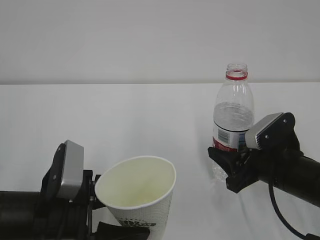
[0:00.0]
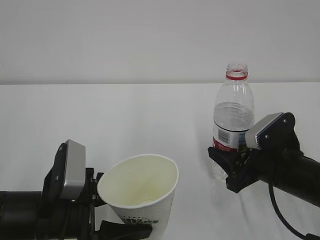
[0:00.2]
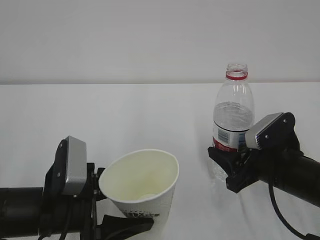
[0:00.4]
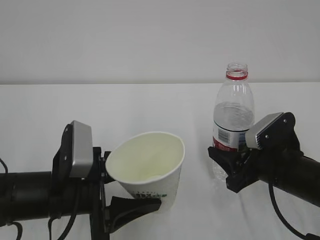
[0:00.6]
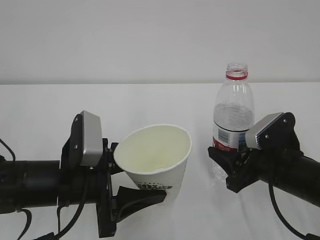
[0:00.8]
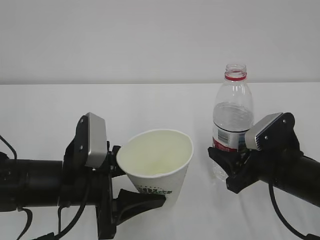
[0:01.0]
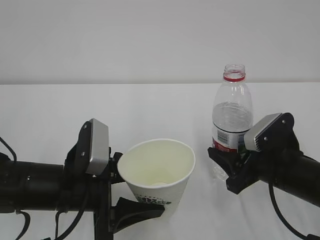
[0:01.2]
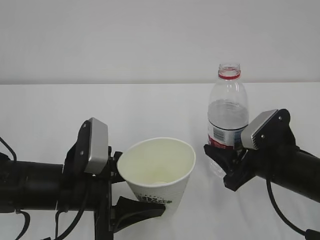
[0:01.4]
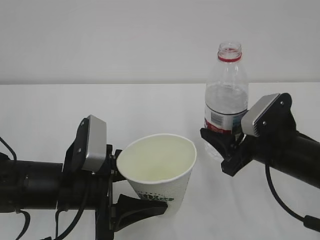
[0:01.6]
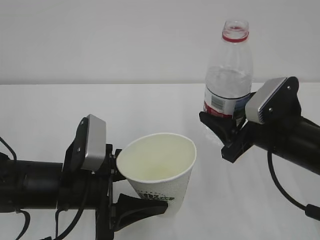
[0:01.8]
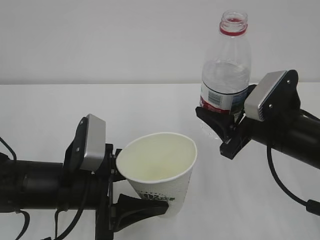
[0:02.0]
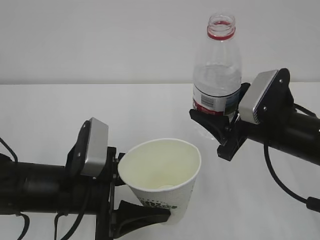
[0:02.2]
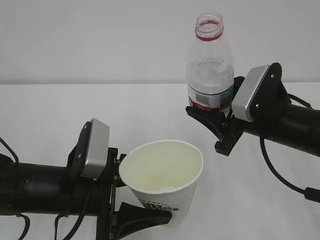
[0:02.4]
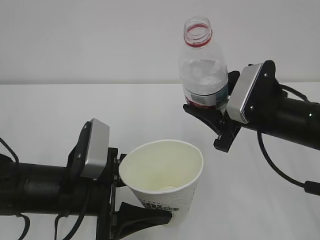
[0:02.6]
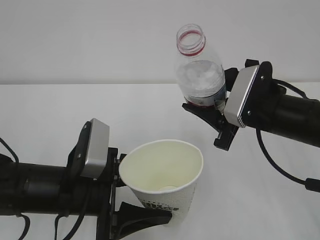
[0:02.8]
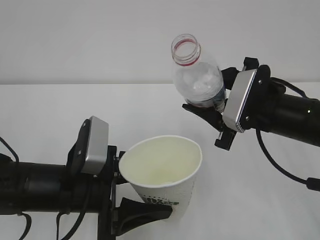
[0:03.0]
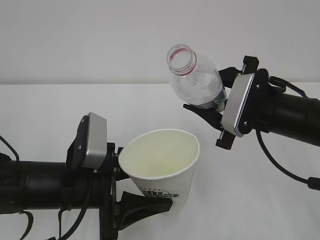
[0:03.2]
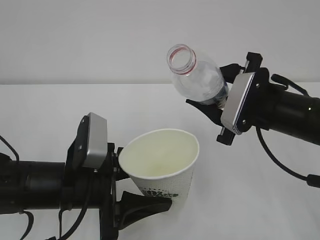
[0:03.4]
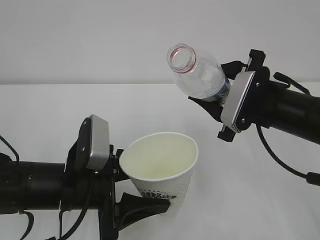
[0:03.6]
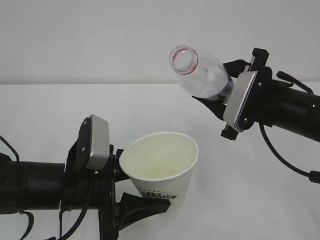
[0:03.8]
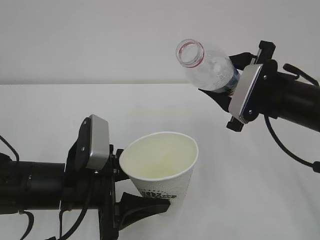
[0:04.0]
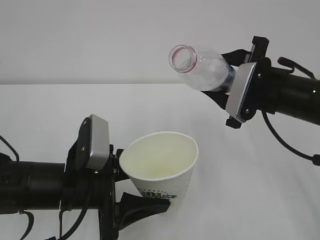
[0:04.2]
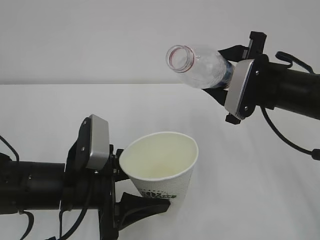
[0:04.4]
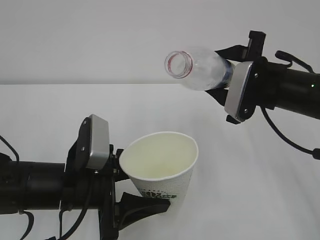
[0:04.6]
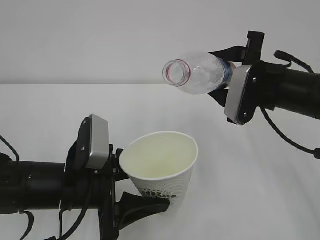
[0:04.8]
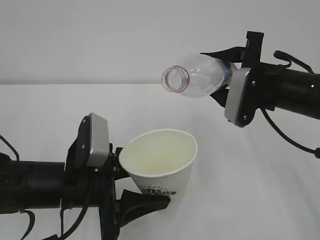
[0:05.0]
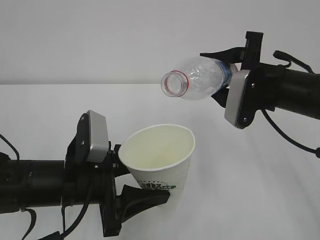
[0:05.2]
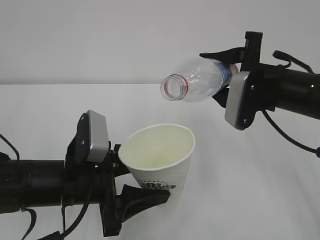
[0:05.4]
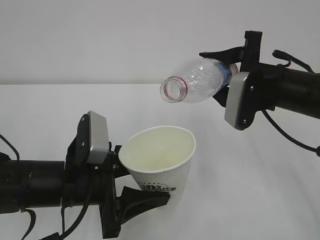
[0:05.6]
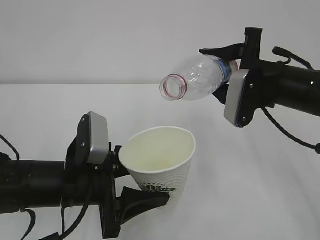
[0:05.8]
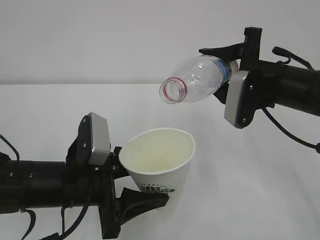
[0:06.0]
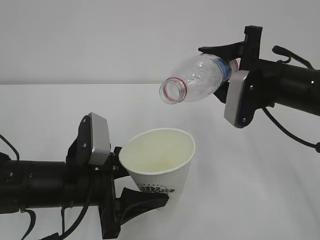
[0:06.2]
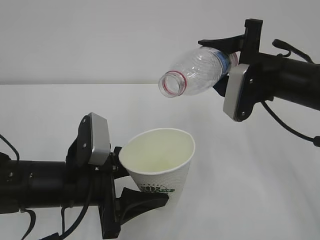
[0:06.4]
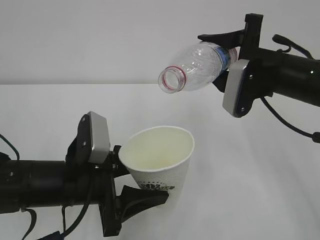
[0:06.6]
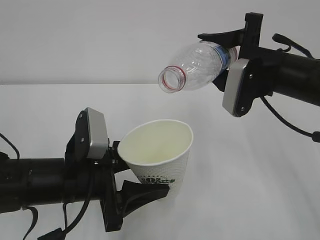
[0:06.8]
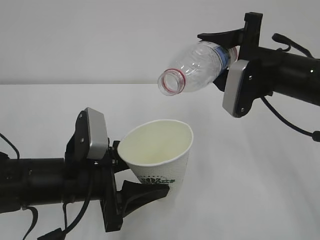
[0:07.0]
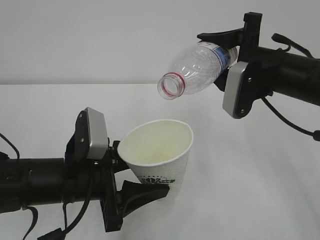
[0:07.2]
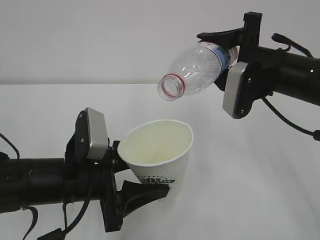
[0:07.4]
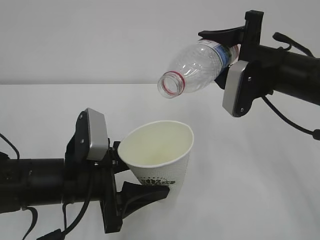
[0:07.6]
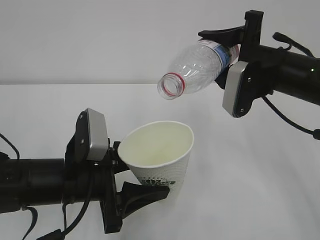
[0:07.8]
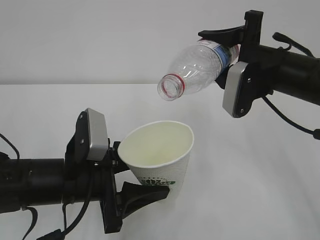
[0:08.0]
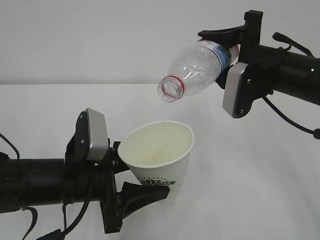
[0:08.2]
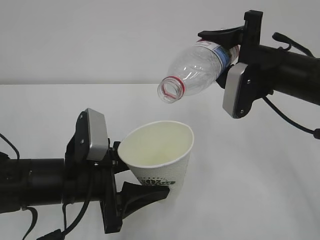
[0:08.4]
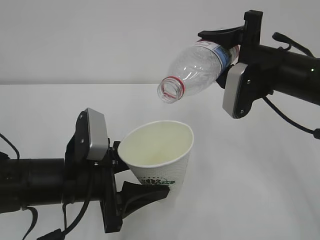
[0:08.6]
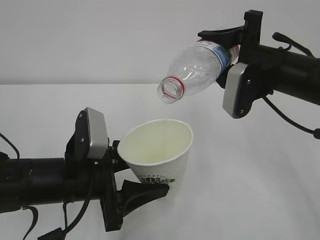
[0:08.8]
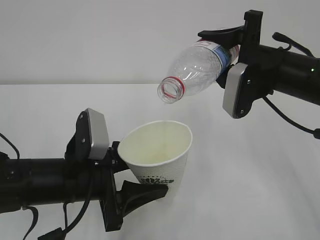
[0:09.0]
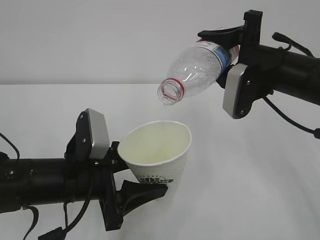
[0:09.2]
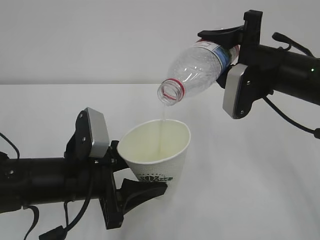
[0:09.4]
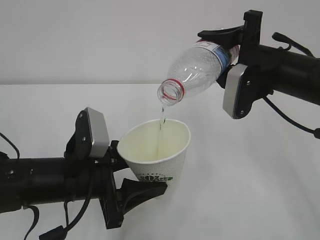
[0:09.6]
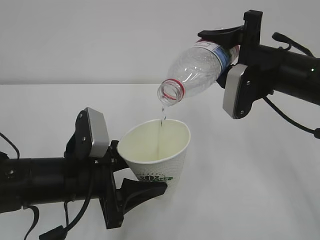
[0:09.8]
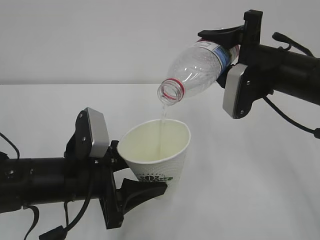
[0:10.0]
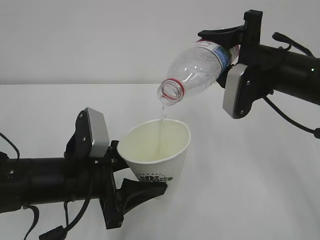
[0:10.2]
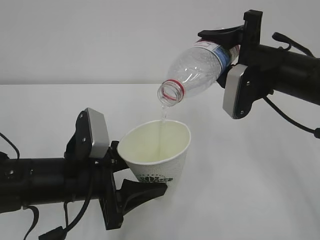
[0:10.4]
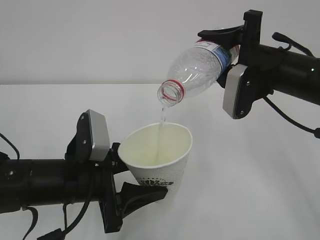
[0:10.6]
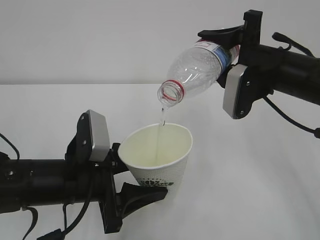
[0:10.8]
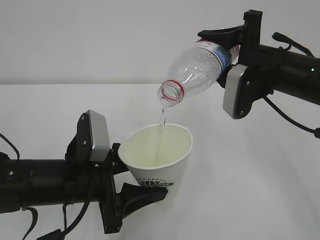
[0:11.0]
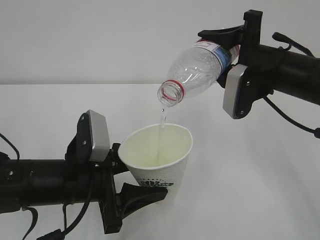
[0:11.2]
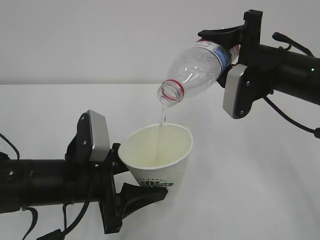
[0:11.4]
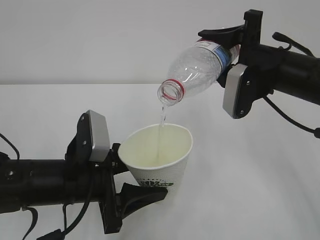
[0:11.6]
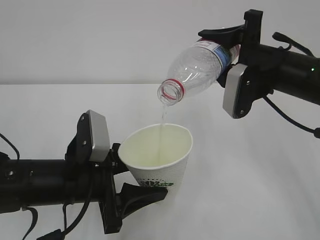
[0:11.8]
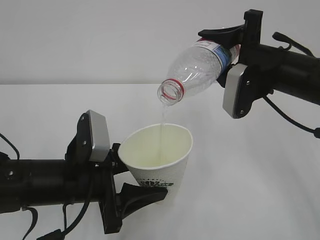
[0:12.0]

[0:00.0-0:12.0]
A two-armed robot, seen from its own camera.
0:01.6 to 0:03.0: The right gripper goes about 5 cm upward.
0:03.0 to 0:04.4: There are only small adjustments of the grippers.
0:04.4 to 0:06.0: The grippers move only a little.
0:06.0 to 0:07.6: There are only small adjustments of the grippers.
0:07.6 to 0:12.0: Neither gripper changes place.

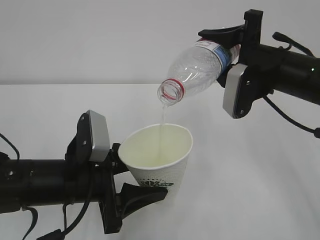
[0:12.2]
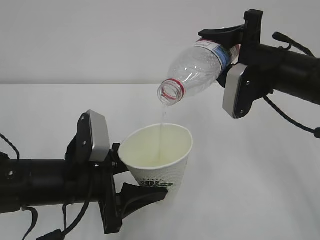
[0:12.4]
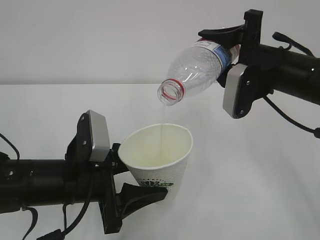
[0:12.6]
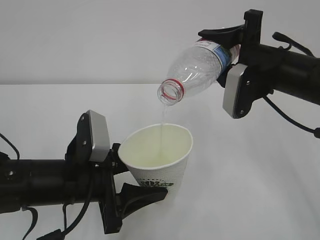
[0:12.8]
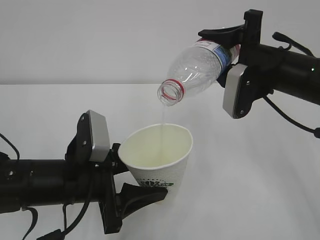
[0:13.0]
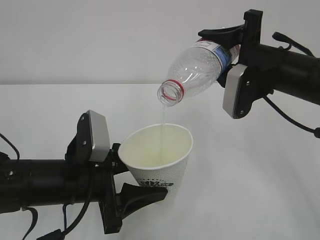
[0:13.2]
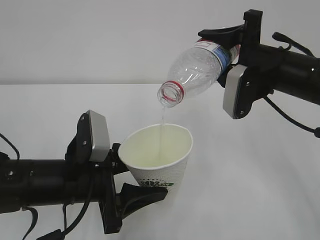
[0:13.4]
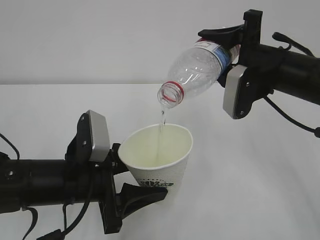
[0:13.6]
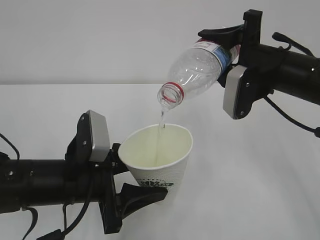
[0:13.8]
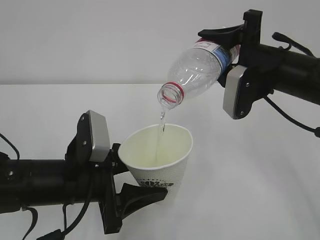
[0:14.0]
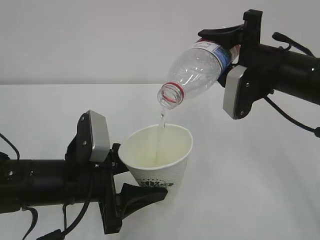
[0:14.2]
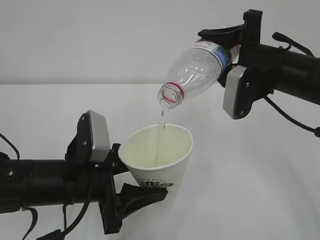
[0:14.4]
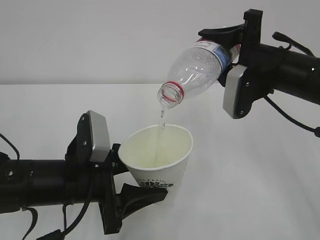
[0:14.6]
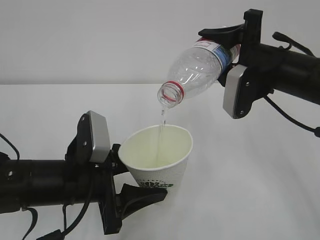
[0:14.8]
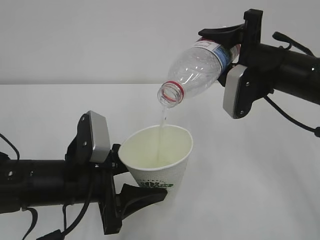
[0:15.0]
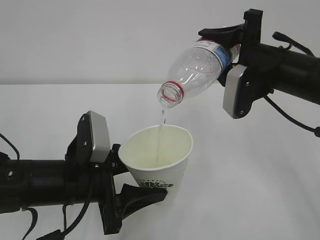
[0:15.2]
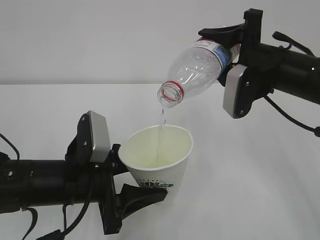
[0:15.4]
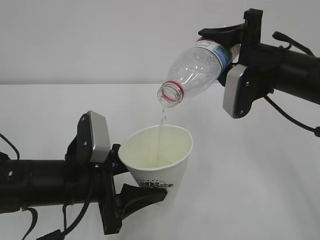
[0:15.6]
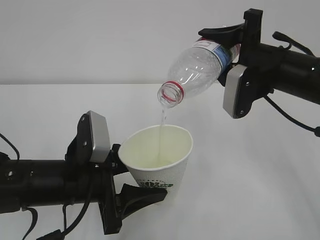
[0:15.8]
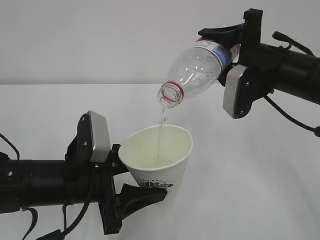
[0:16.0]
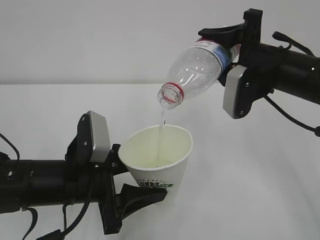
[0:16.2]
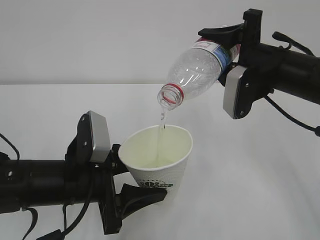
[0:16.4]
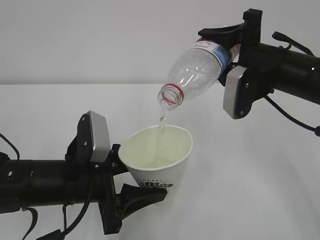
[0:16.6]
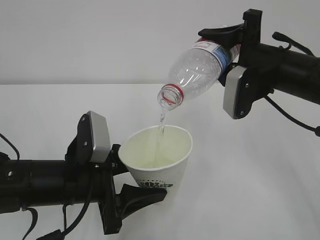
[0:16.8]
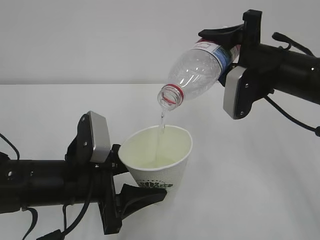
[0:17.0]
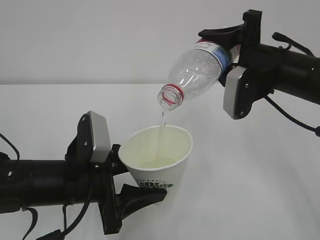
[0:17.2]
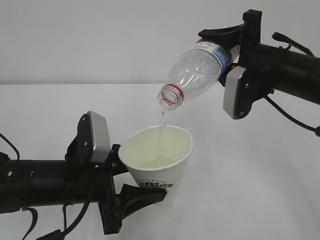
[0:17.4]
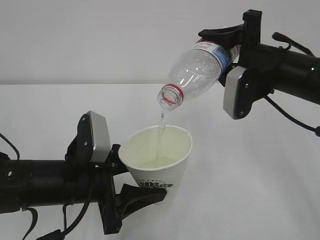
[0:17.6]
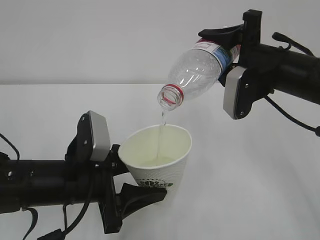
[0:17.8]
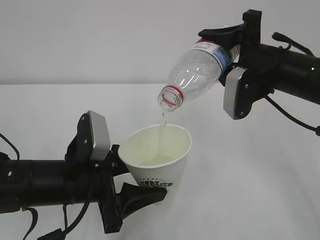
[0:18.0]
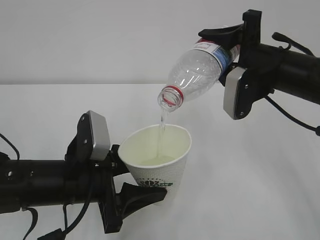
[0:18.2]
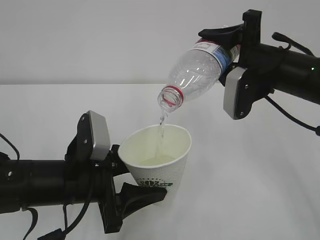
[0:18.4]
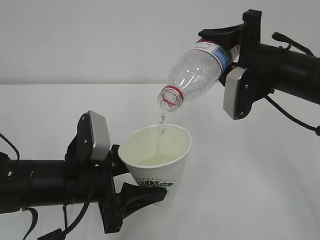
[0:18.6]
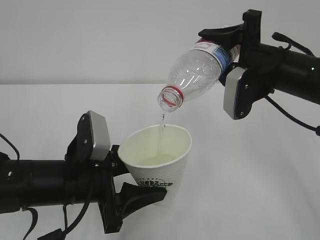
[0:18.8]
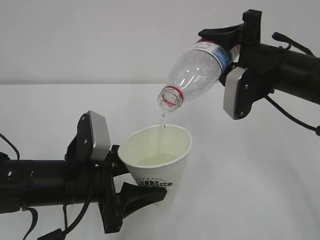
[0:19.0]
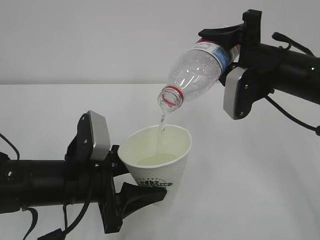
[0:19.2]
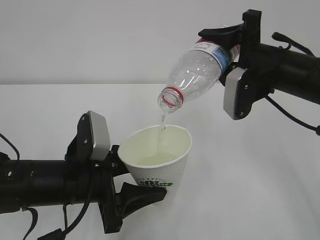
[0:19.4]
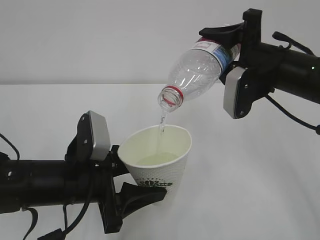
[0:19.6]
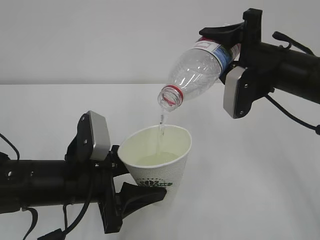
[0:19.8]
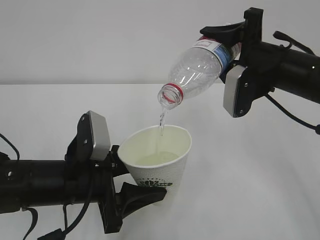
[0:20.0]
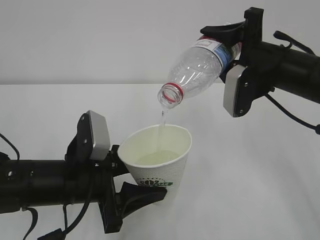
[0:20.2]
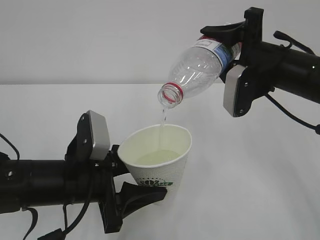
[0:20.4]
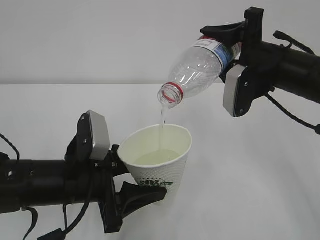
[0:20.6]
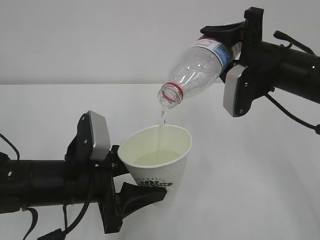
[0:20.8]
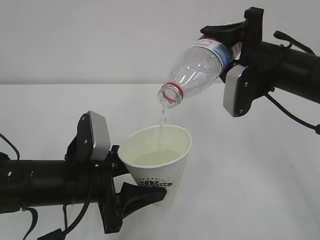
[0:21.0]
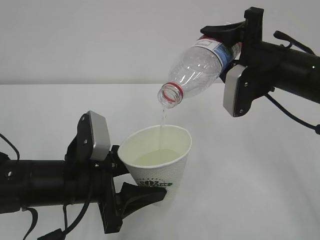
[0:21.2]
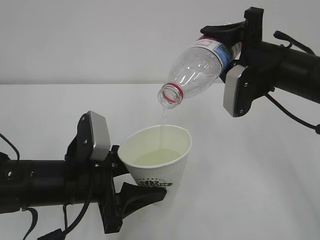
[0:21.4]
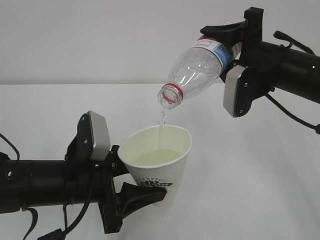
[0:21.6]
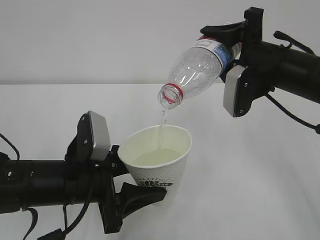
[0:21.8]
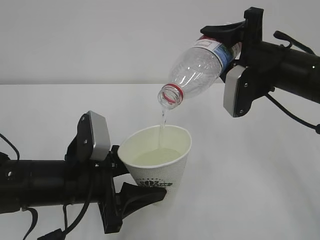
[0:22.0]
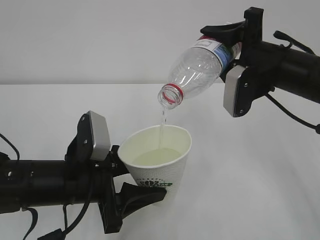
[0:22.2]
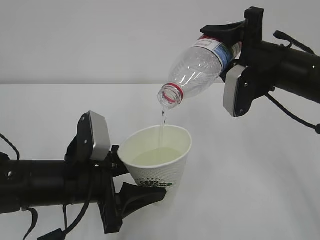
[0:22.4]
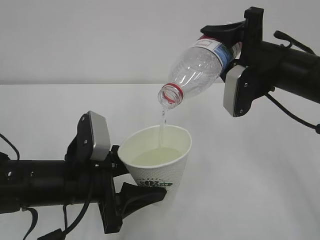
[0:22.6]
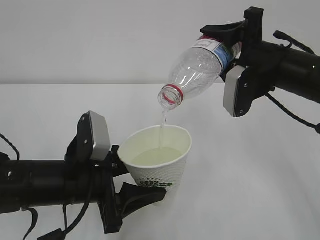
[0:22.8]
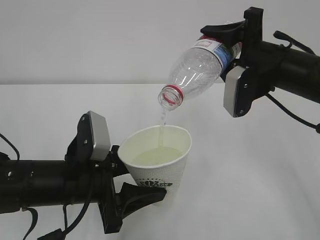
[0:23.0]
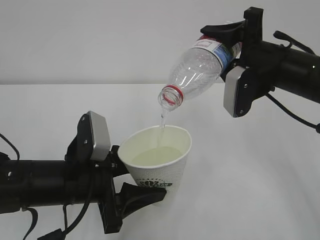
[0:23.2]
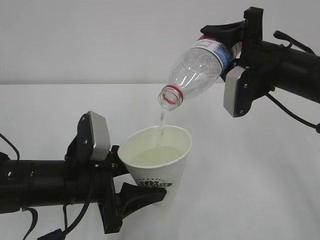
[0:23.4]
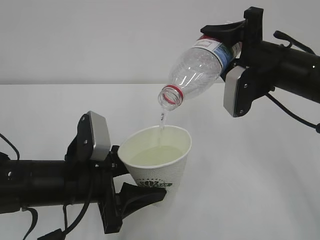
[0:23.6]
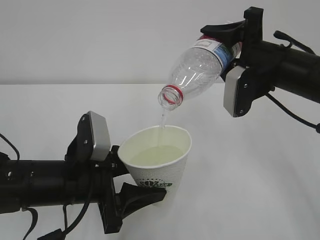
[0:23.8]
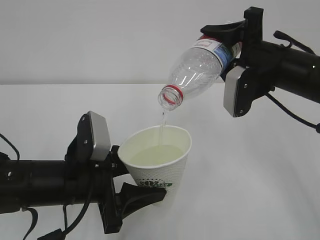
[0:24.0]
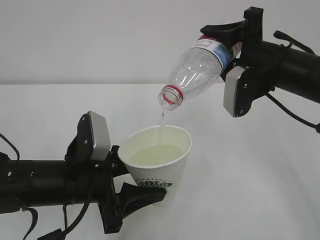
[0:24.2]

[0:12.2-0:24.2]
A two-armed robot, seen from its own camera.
0:12.2 to 0:18.2: Neither gripper changes place.
0:18.2 to 0:24.2: The two grippers keep their place.
